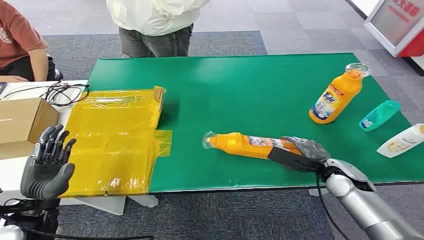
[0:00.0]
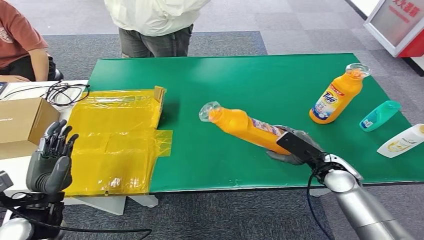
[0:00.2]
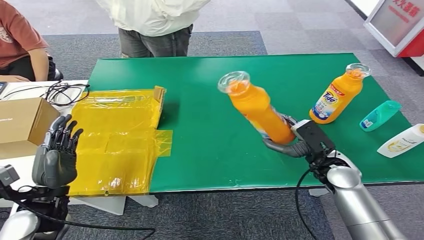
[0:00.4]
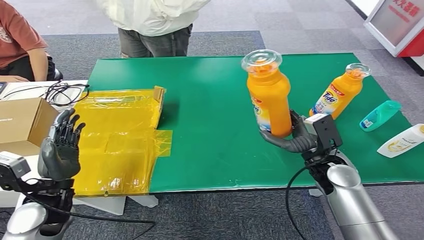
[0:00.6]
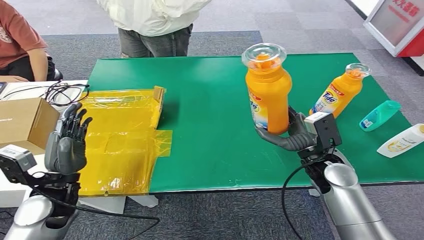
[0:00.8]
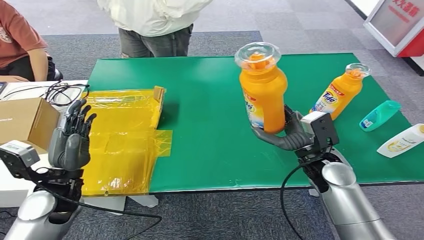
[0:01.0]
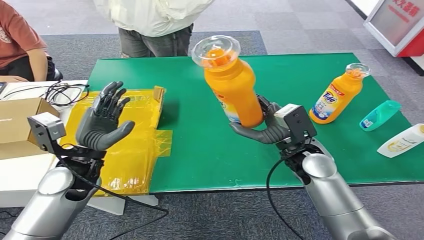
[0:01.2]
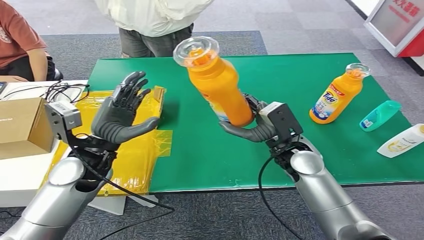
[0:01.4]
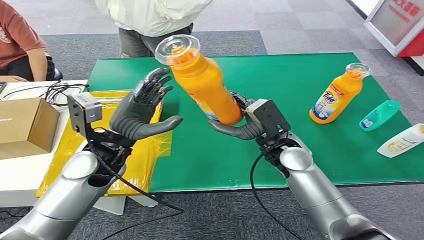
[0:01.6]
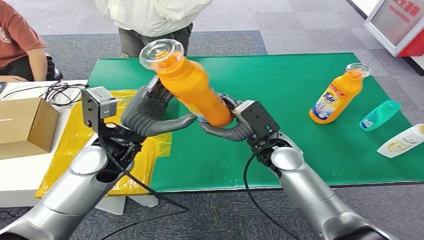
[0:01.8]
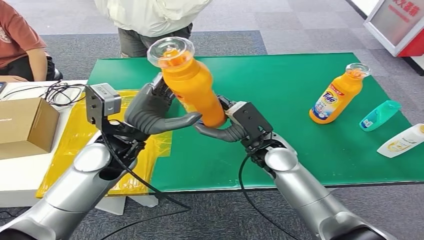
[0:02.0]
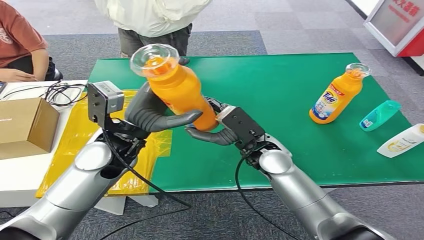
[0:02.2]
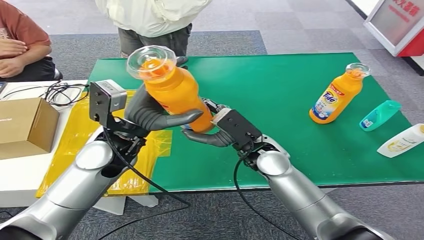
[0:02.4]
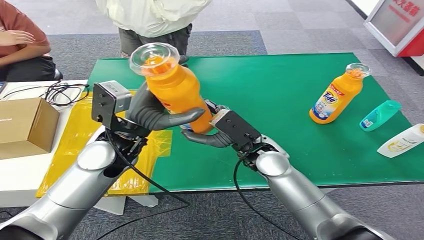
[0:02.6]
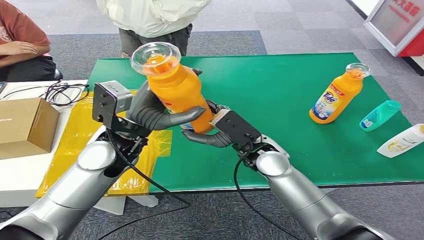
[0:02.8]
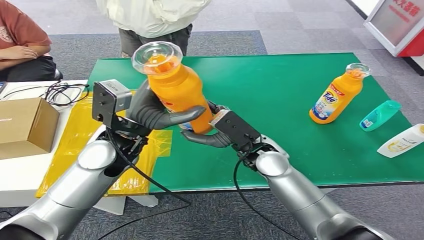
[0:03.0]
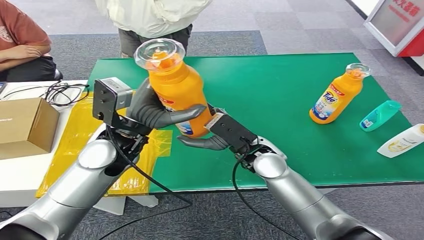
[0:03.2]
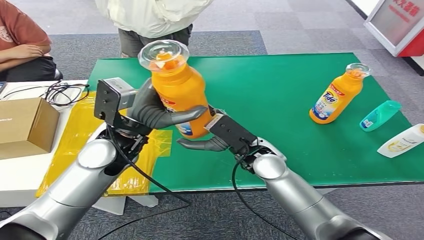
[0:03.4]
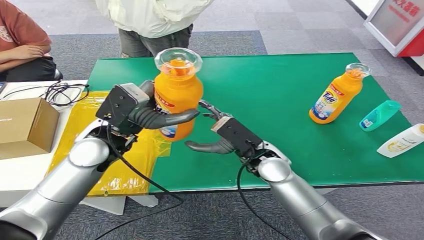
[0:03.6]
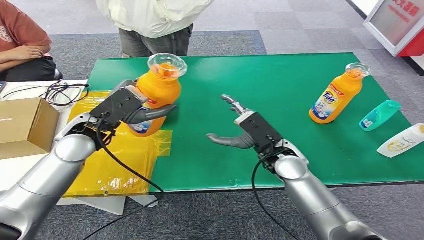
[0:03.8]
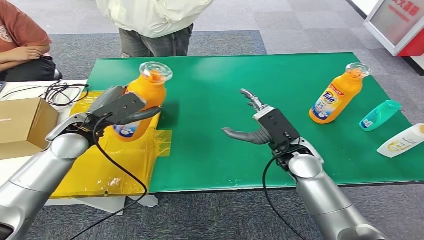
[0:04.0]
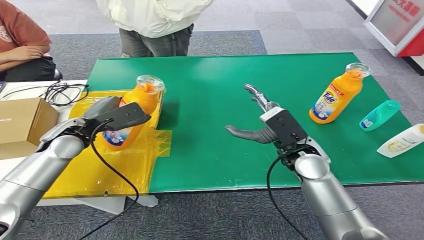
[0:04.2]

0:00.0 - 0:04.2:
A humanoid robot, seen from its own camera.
Step, 0:00.0 - 0:01.4: Pick up the bottle from the table.
Step, 0:01.6 - 0:04.2: Turn the bottle to the front side.

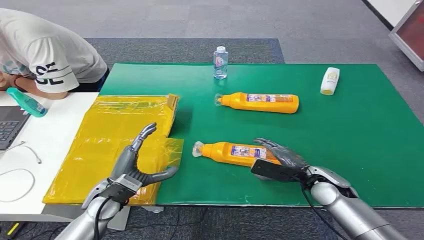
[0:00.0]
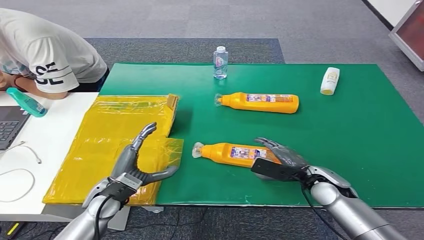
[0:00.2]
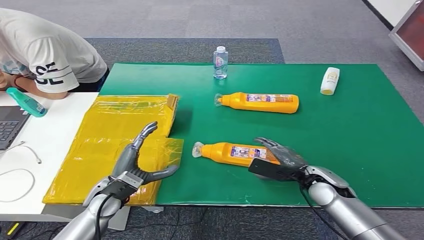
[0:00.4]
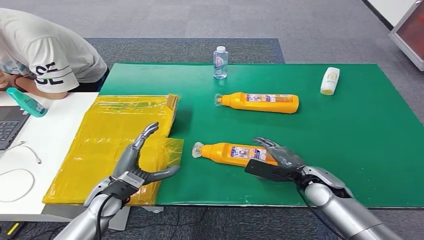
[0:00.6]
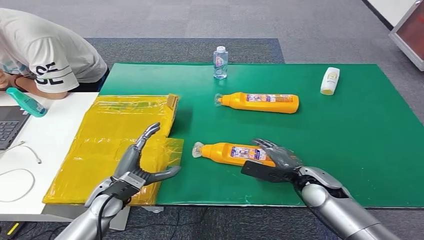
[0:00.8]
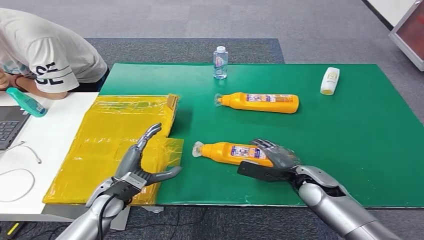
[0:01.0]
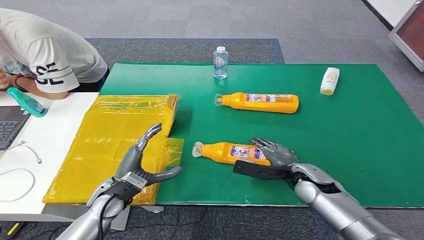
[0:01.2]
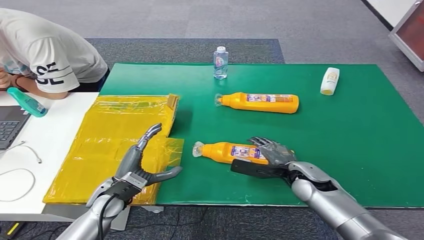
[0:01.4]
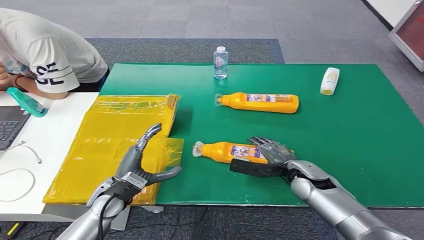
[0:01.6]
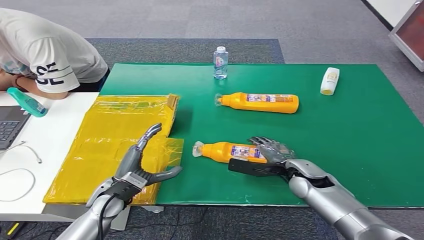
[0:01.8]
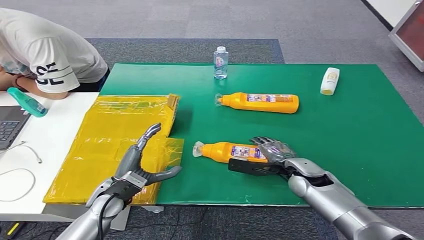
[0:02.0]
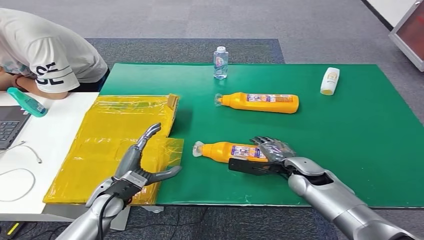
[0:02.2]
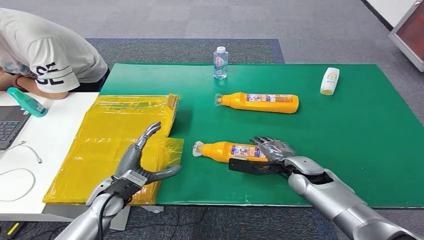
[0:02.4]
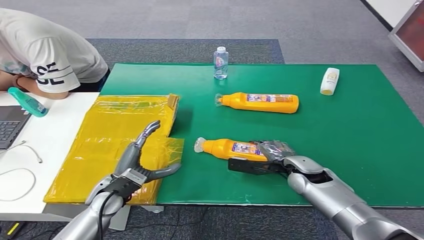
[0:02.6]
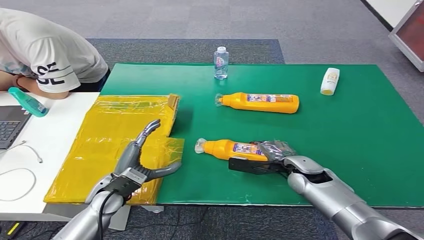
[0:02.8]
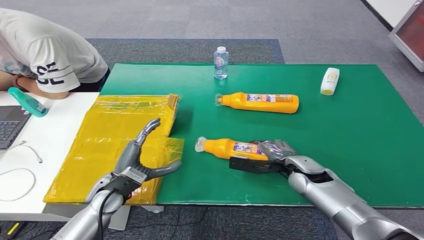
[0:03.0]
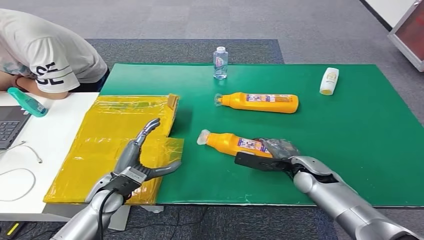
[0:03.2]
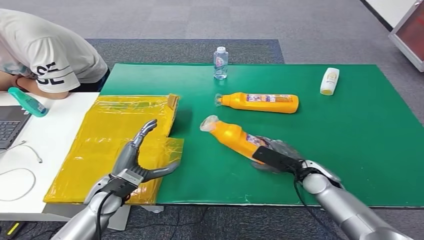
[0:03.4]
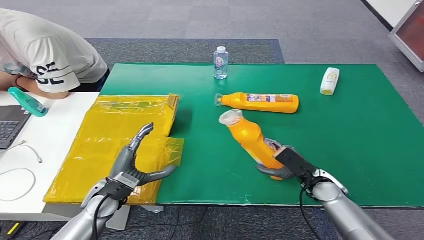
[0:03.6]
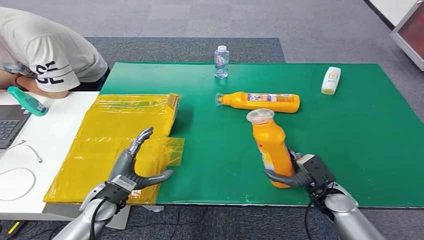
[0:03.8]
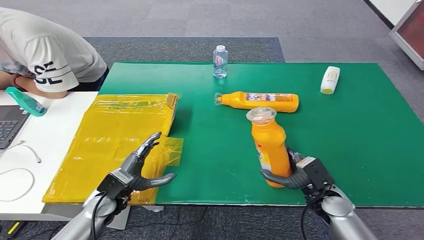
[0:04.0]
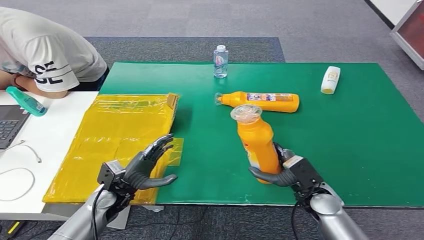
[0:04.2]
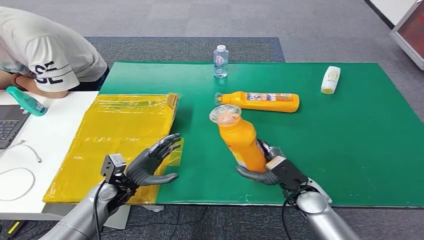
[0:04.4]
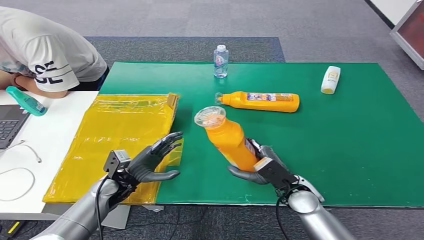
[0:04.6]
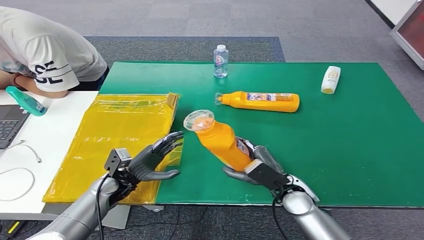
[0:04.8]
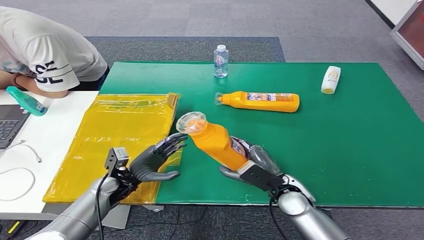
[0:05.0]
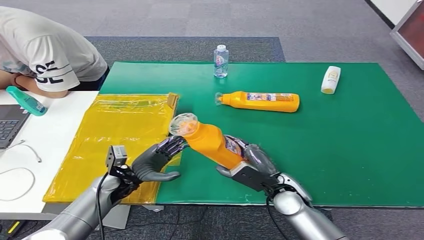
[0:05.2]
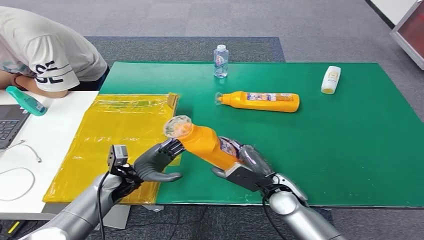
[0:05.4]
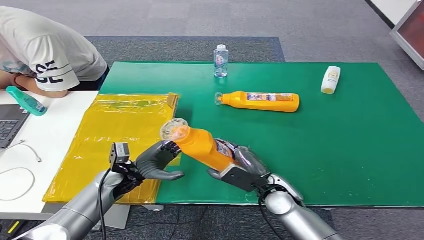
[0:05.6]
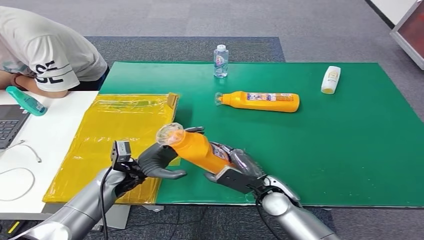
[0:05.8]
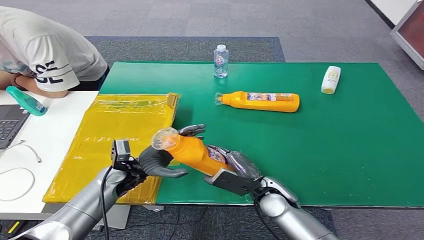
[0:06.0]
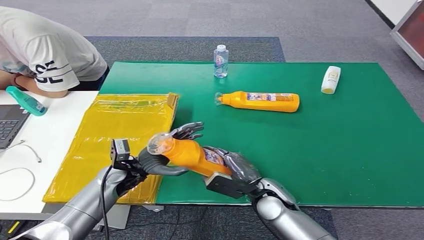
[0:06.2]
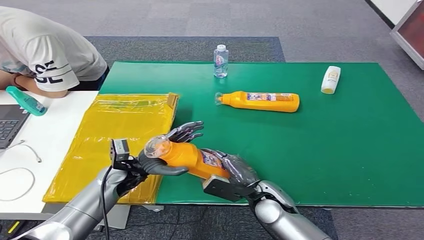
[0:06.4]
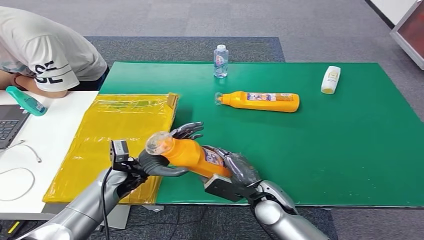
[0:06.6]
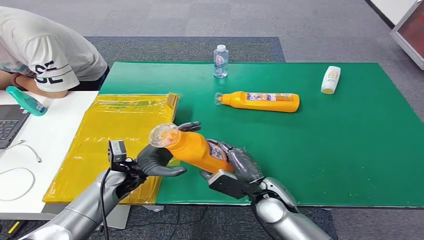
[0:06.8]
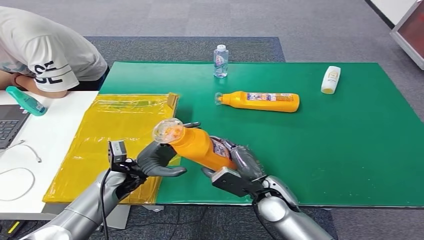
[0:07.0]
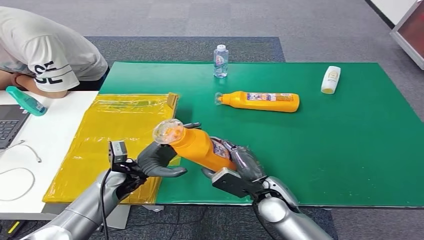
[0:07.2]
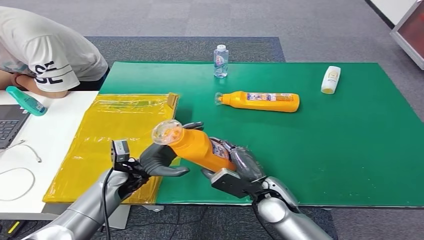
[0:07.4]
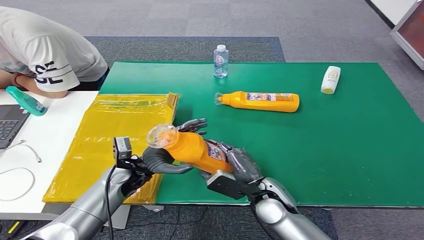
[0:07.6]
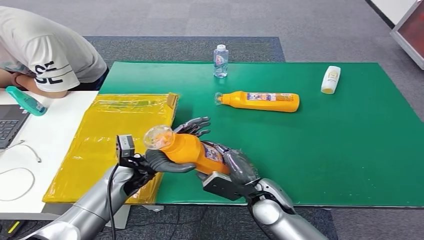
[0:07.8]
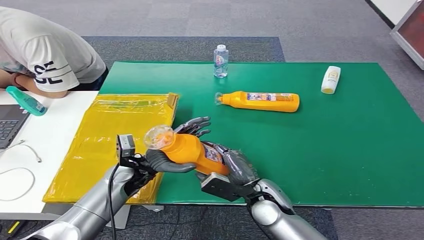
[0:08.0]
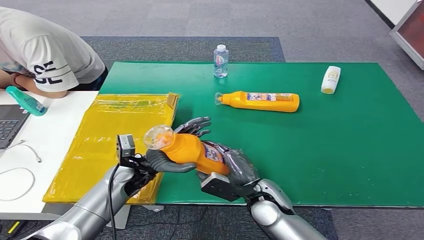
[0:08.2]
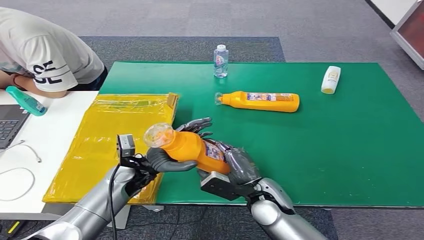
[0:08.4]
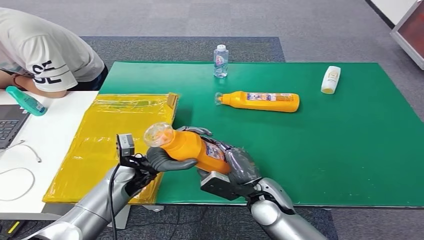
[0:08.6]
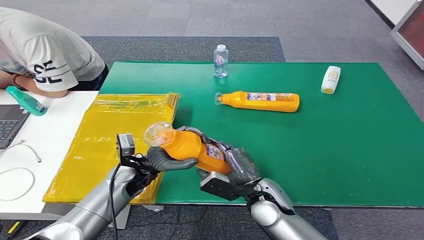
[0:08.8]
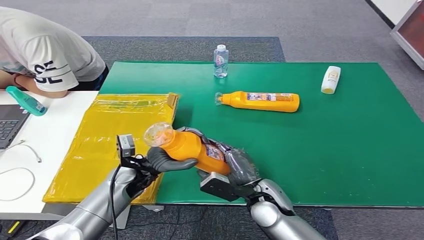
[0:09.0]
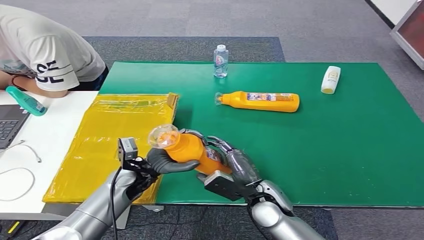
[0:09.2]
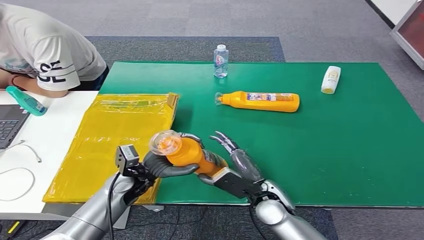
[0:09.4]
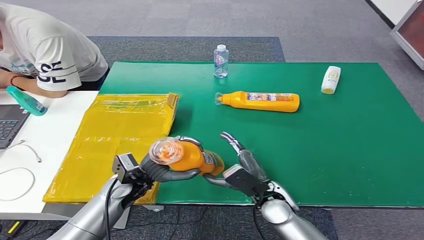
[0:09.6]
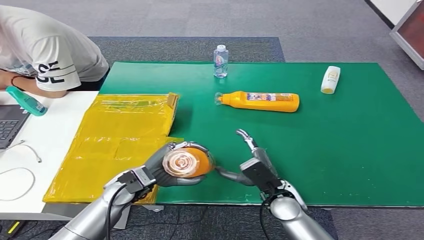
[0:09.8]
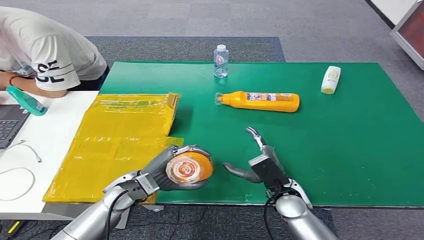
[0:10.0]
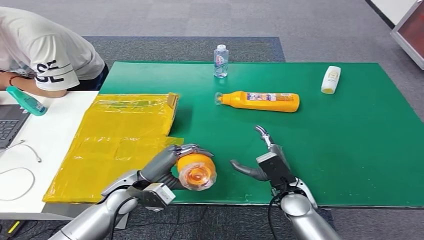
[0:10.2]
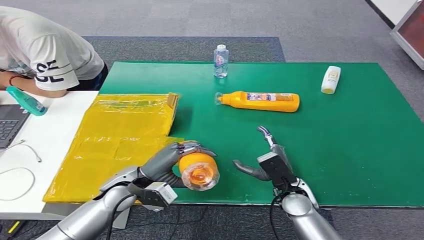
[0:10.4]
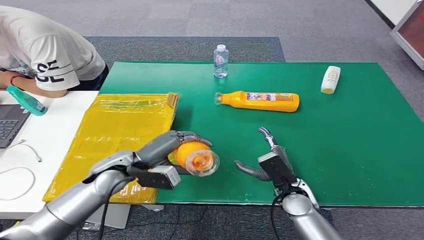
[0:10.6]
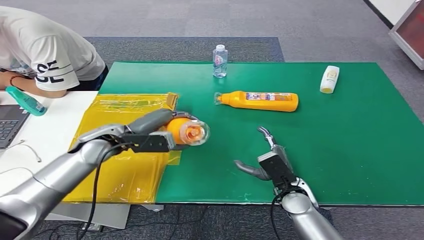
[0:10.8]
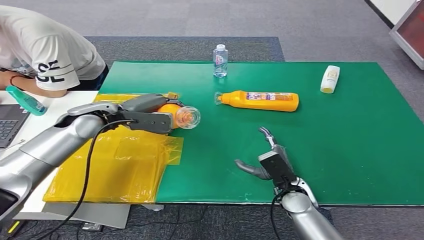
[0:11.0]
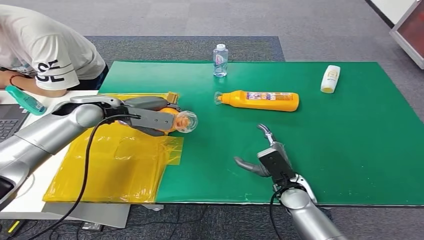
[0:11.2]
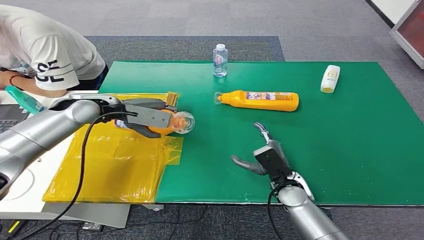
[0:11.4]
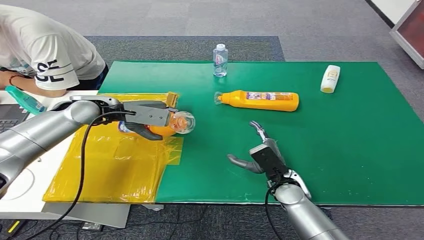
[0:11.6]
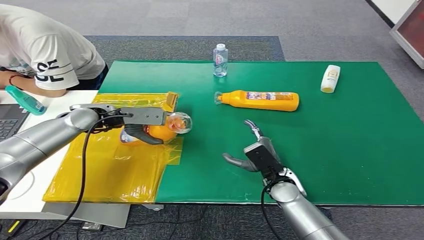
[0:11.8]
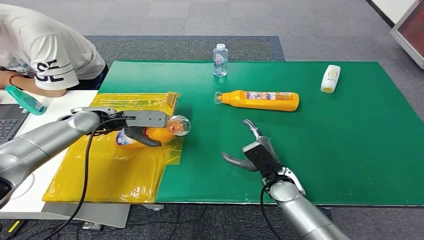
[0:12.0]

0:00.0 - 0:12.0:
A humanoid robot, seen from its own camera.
Step, 0:00.0 - 0:04.2: Pick up the bottle from the table.
0:01.6 - 0:03.0: There are only small adjustments of the hands.
0:03.0 - 0:04.4: The left hand changes place by some 5 cm, while the right hand travels backward by roughly 5 cm.
0:04.4 - 0:06.0: The left hand moves some 5 cm. Meanwhile the right hand heads to the left, covering approximately 5 cm.
0:06.0 - 0:09.0: The hands make only small movements.
0:09.0 - 0:10.4: The right hand is displaced to the right by approximately 5 cm.

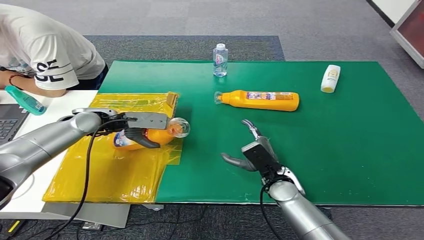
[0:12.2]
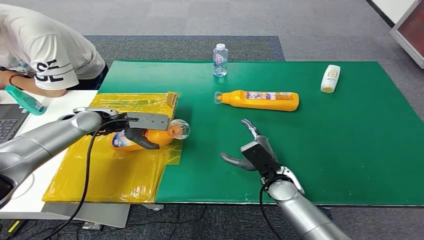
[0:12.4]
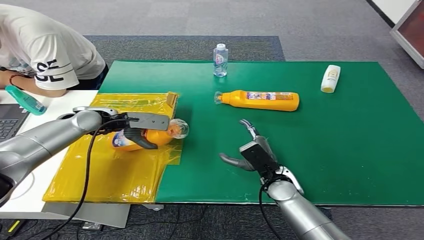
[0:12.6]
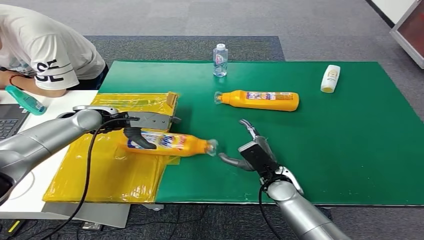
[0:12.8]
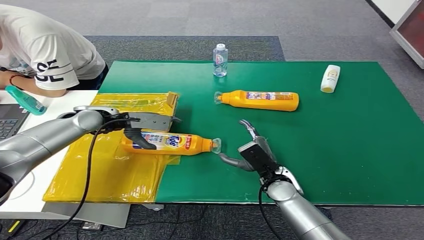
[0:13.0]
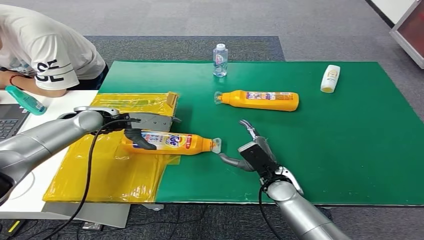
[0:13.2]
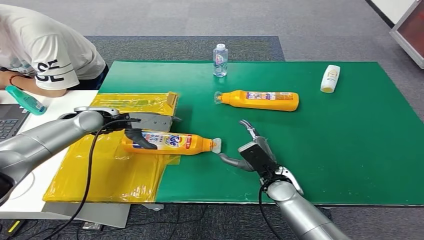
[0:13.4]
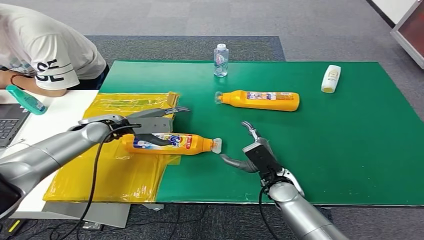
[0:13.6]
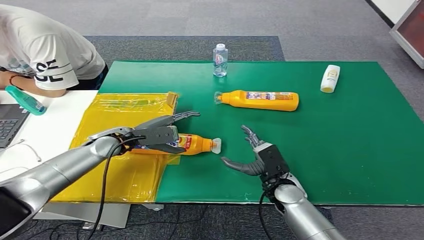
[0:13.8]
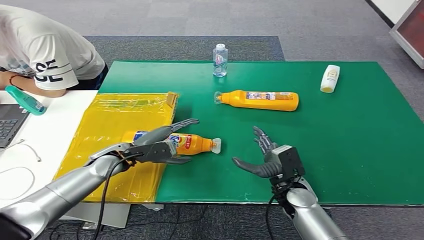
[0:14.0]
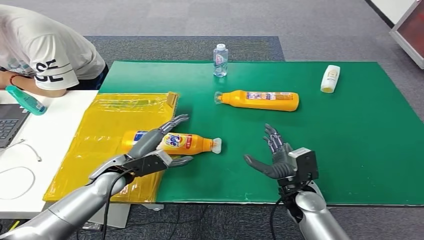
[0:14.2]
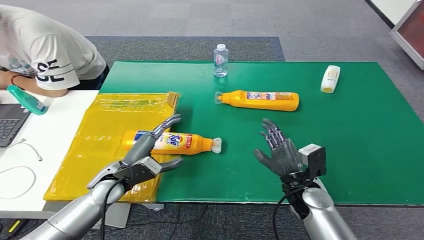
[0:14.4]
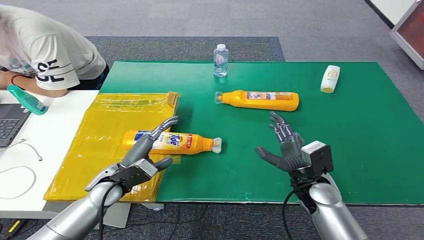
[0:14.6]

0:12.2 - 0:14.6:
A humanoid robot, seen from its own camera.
Step, 0:12.2 - 0:14.6: Turn the bottle to the front side.
0:12.2 - 0:13.4: The hands make only small movements.
